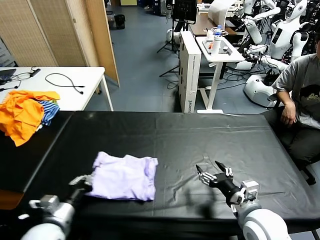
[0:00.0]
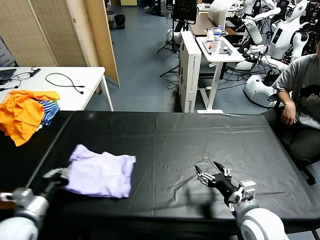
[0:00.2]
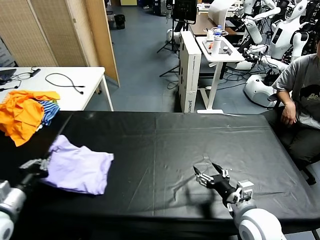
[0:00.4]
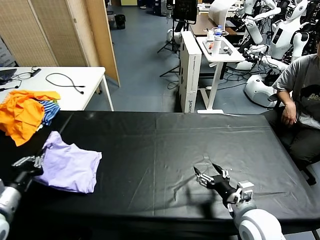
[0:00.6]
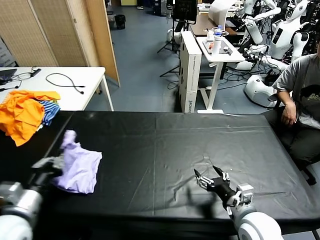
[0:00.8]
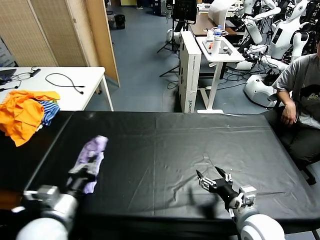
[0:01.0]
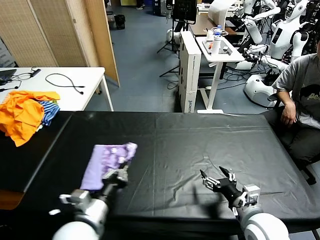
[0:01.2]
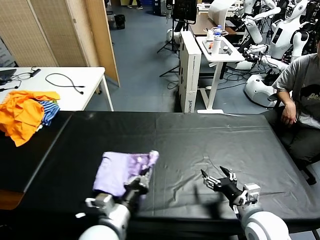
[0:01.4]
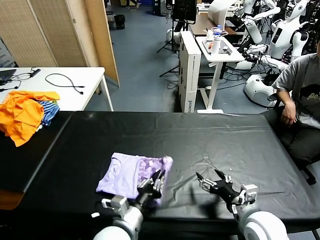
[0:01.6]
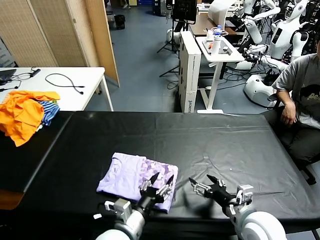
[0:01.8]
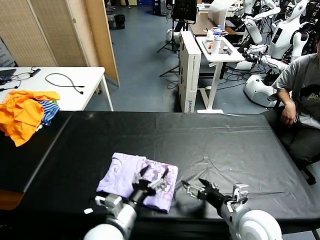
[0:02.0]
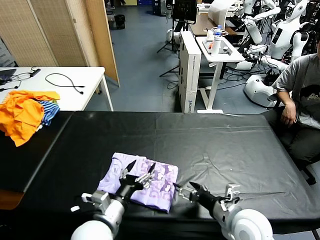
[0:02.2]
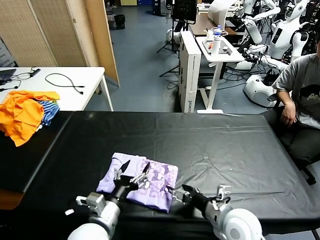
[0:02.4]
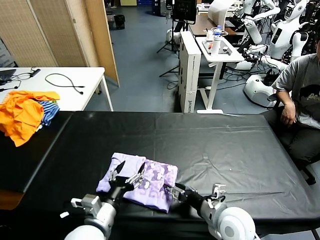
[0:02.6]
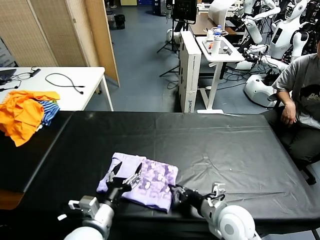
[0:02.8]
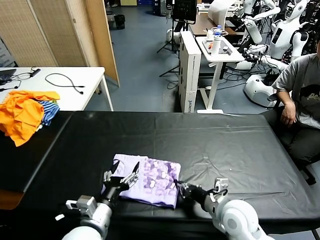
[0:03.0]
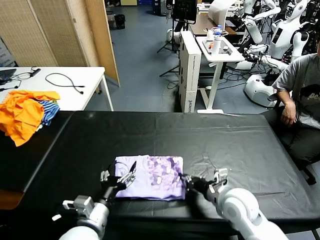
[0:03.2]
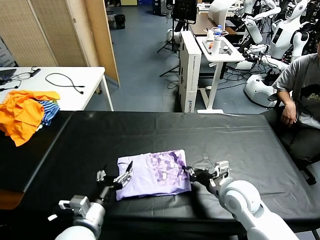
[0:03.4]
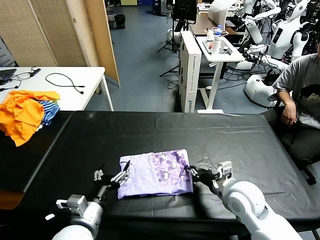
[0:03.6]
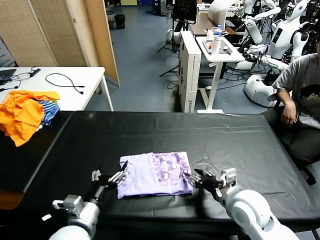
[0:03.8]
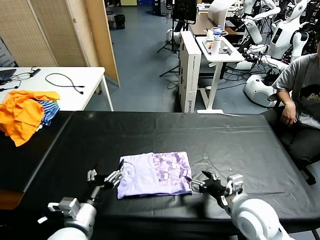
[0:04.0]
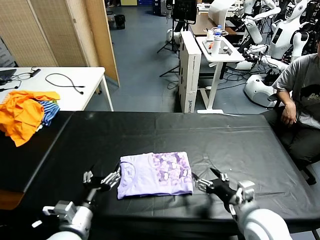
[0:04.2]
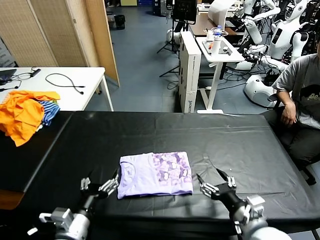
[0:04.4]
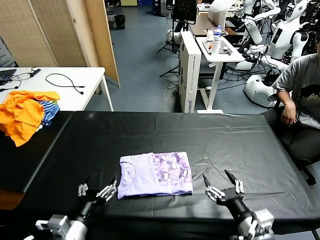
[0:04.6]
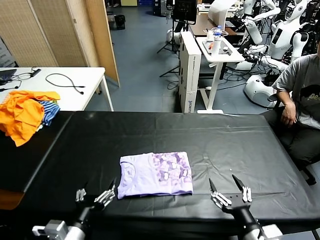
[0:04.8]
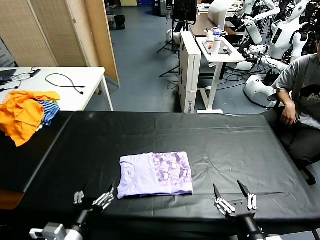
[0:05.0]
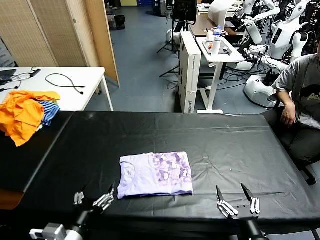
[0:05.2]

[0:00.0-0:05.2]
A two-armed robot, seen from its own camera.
Task of the whole recording: fold and organize the clothes.
Step, 0:01.8 to 0:03.8: Drag the clothes to the center of the table.
0:00.0 to 0:01.8: The left gripper goes about 20 cm to the right, and opens up.
0:01.8 to 0:03.4: The left gripper heads to the left, covering roughly 10 cm, and opens up, while the right gripper heads forward, covering roughly 10 cm, and closes its fingers.
0:03.4 to 0:05.2: The right gripper travels backward by roughly 20 cm, and opens. Meanwhile the left gripper shifts about 5 cm backward.

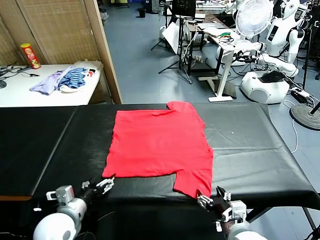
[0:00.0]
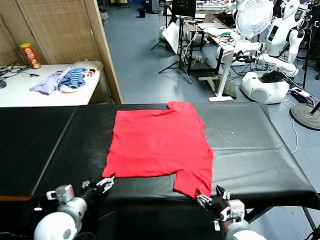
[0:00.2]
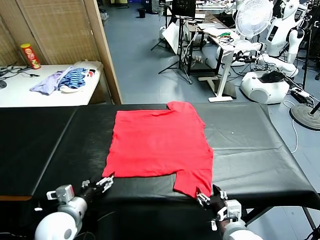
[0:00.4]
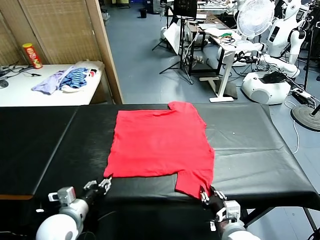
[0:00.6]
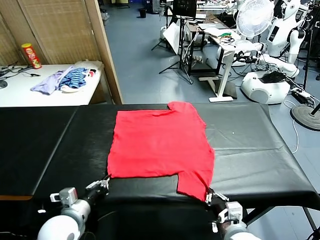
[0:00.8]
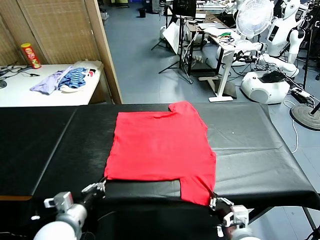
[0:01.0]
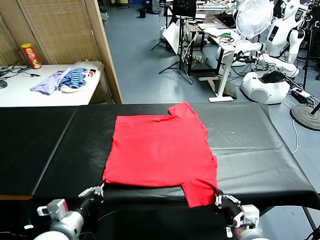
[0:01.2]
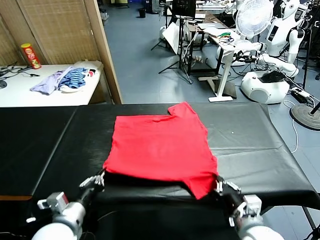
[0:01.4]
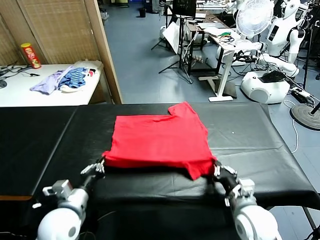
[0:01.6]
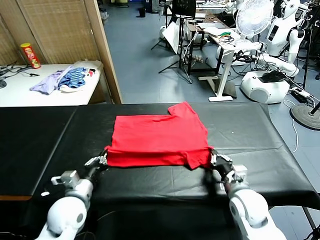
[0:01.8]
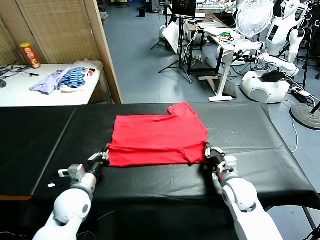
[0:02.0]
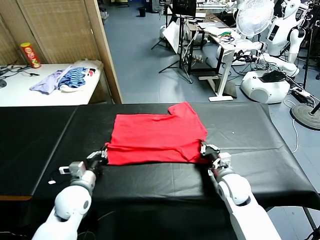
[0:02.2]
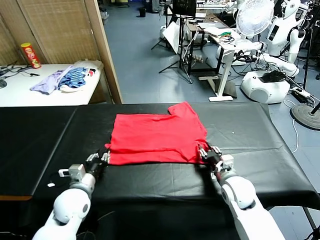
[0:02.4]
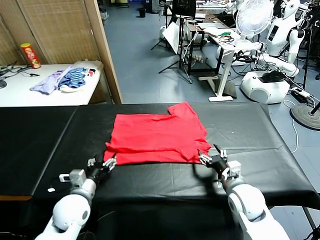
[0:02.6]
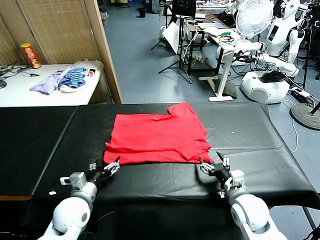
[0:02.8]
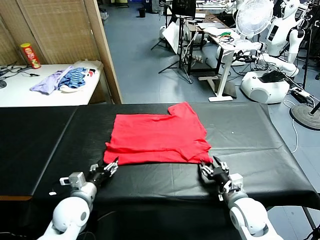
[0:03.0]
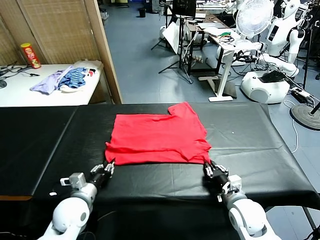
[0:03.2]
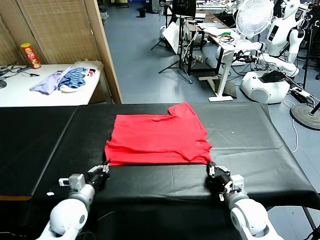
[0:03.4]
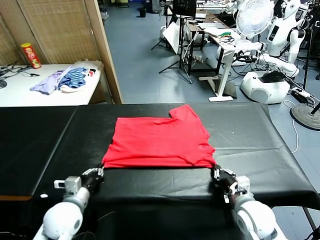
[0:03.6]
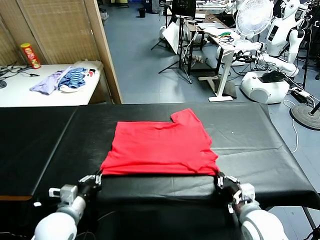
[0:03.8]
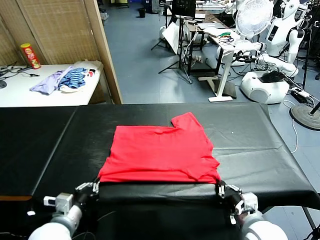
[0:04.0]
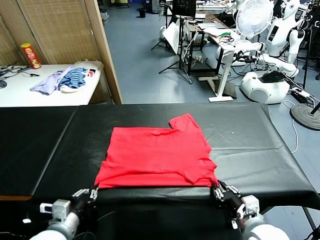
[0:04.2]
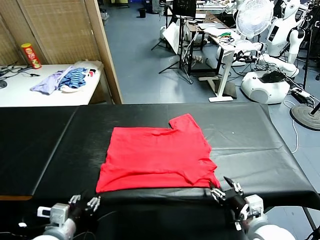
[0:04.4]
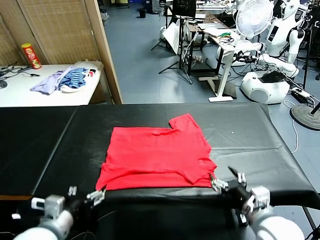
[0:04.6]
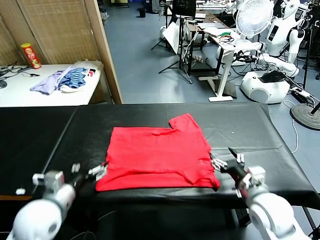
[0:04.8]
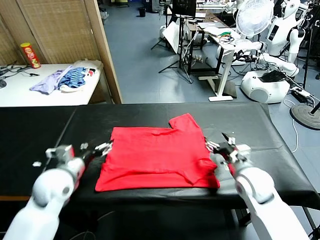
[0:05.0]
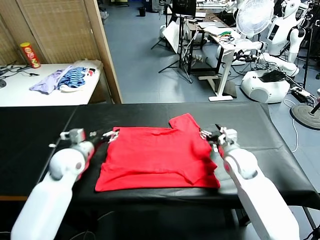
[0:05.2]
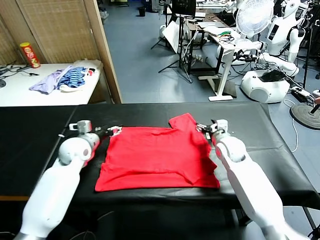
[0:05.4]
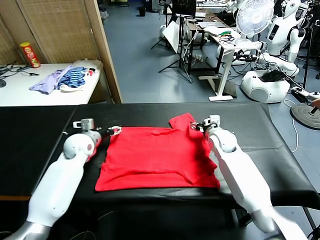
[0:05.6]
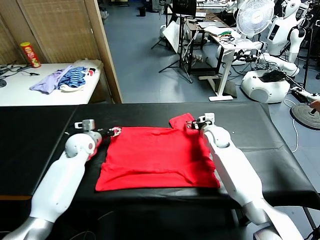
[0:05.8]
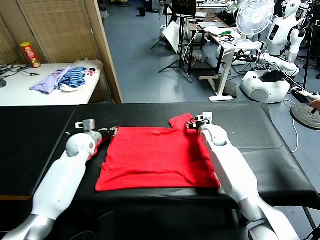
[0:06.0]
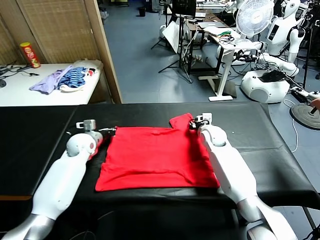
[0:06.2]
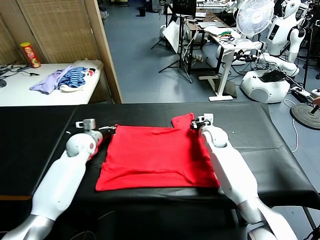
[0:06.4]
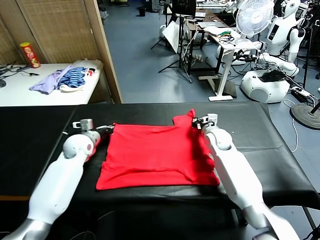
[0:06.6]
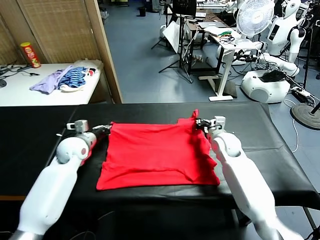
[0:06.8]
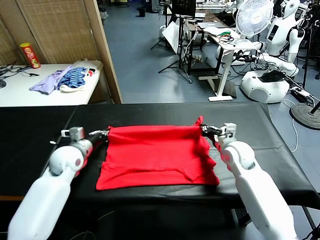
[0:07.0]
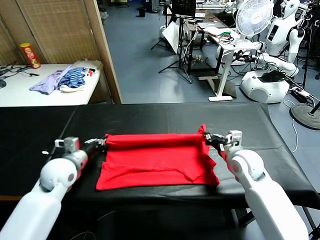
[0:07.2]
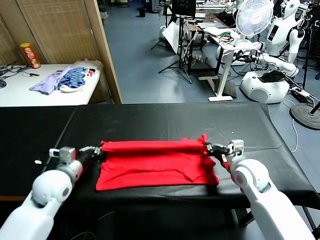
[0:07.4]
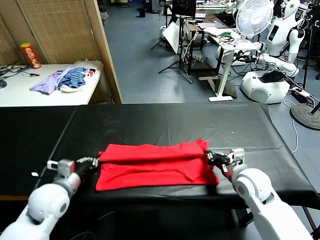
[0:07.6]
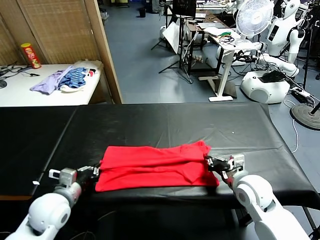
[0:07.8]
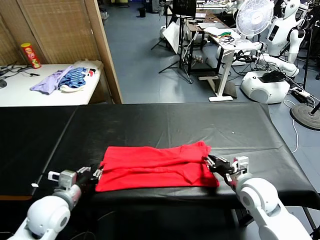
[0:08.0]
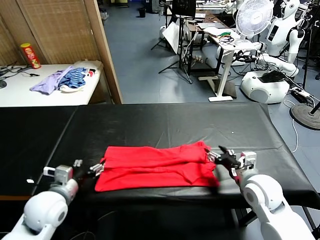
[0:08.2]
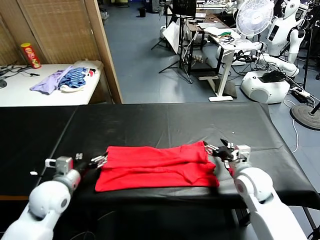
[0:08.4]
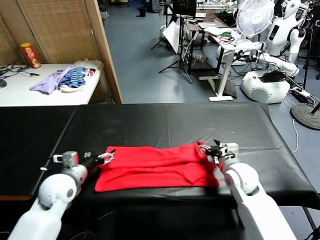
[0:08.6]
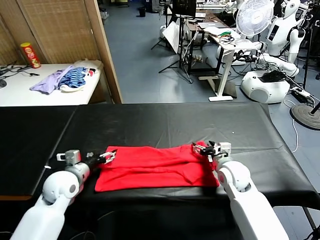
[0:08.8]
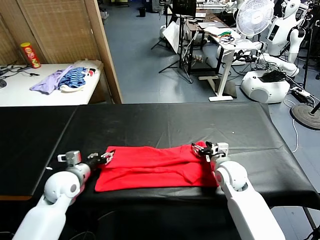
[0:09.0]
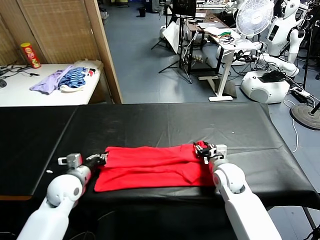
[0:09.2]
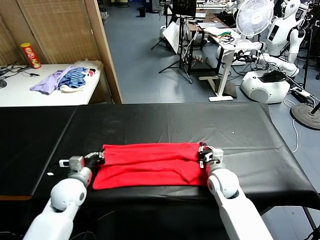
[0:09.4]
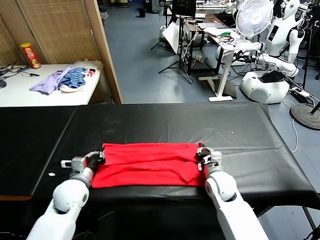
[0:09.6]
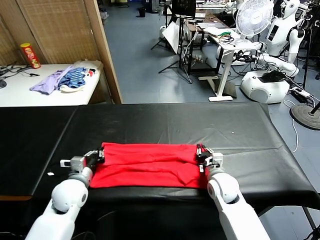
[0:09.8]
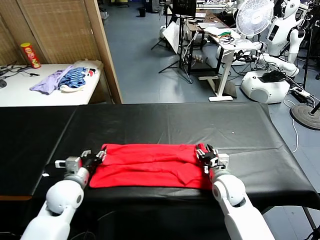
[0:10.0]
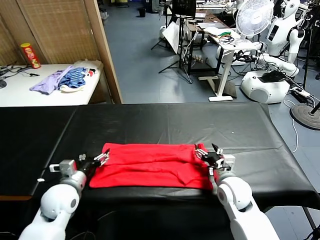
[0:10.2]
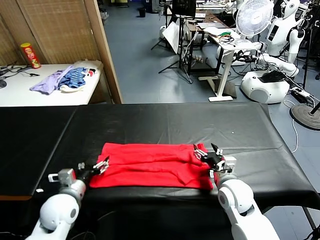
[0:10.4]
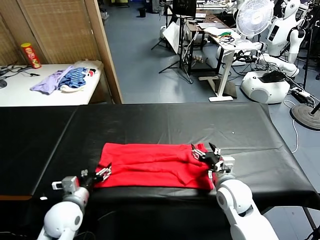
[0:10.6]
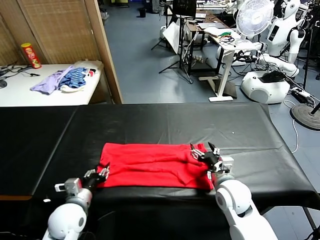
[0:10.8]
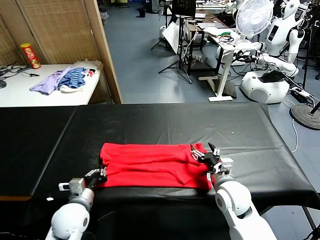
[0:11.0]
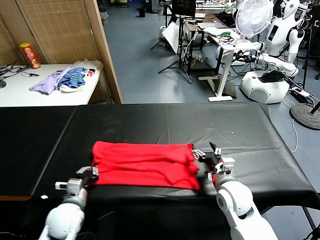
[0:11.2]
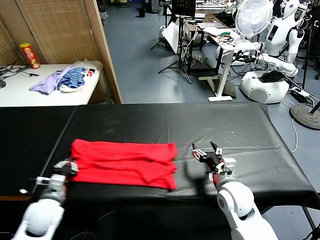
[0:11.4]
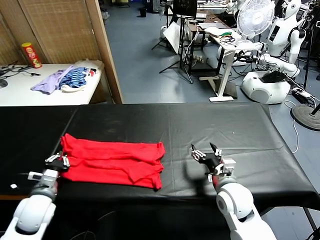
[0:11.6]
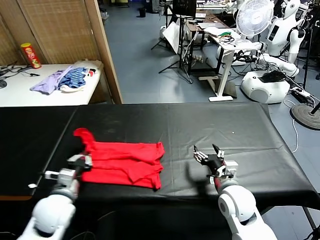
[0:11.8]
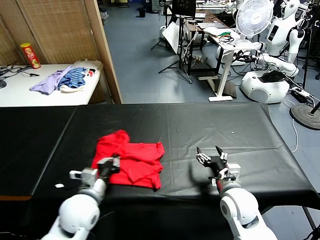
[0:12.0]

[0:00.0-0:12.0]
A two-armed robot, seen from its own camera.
Task of the whole recording: fold and organize the clothes.
Step, 0:00.0 to 0:00.8: use both grippers simultaneously to clamp the lower edge of the clothing fabric.
Step, 0:01.0 to 0:02.4: use both grippers to drag the lower edge of the fabric forward and fold it over the upper edge.
Step, 0:02.6 to 0:04.4: Drag the clothes downward with both gripper.
Step, 0:04.6 to 0:06.2: use both grippers simultaneously to clamp the upper edge of the clothing fabric.
Step, 0:06.4 to 0:08.0: use both grippers to drag the upper edge of the fabric backward and fold it over the lower edge.
Step, 0:08.2 to 0:11.0: use the left gripper to clamp the left edge of the fabric.
0:01.6 to 0:03.0: The right gripper opens, then closes once more. Meanwhile the left gripper opens its fingers.
0:03.0 to 0:04.4: The left gripper is displaced backward and upward by roughly 15 cm, and opens up, while the right gripper goes some 10 cm upward and backward, and opens.
0:04.4 to 0:06.0: Both grippers move forward, roughly 35 cm. The left gripper closes, while the right gripper closes its fingers.
0:06.0 to 0:07.6: Both grippers travel together backward, roughly 25 cm.
0:07.6 to 0:09.0: The grippers both shift forward by approximately 5 cm. The left gripper opens up. Meanwhile the right gripper opens its fingers.
0:09.0 to 0:10.4: The grippers both shift backward by roughly 5 cm. The left gripper opens. Meanwhile the right gripper closes and opens again.
0:10.4 to 0:12.0: The left gripper goes approximately 10 cm to the right, and closes.

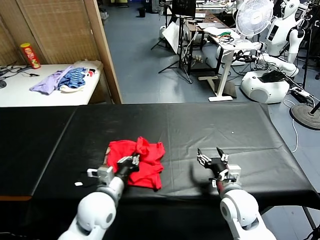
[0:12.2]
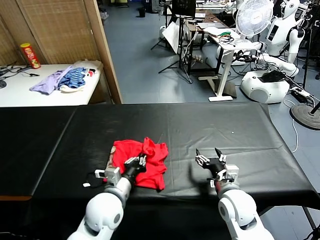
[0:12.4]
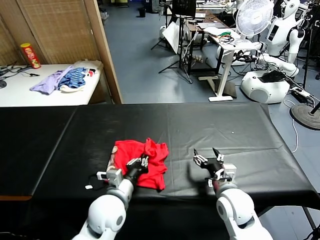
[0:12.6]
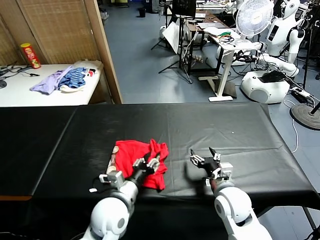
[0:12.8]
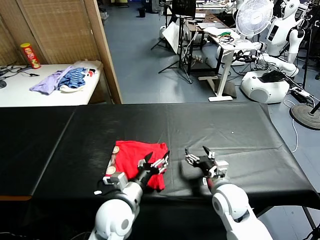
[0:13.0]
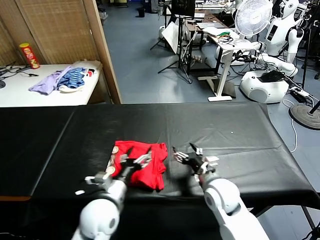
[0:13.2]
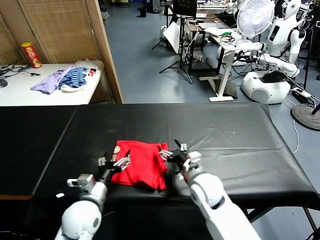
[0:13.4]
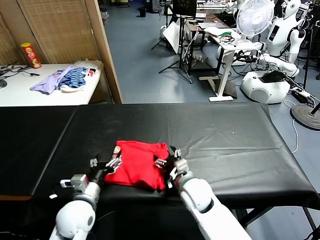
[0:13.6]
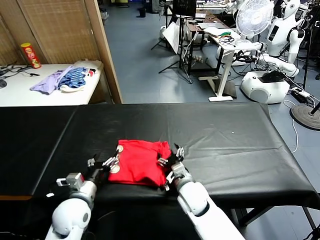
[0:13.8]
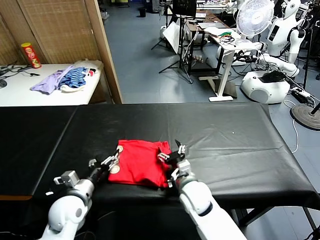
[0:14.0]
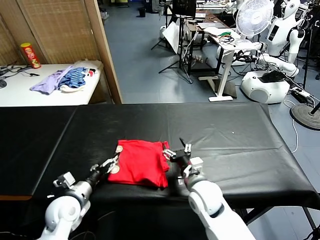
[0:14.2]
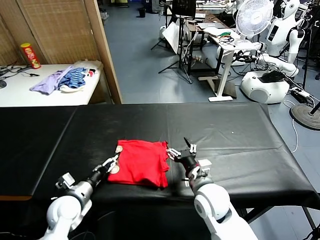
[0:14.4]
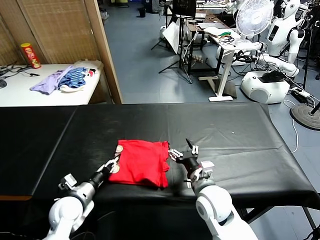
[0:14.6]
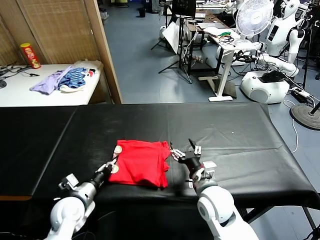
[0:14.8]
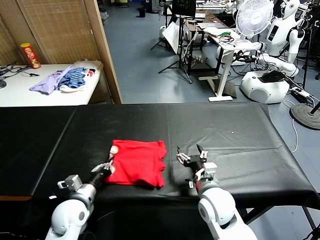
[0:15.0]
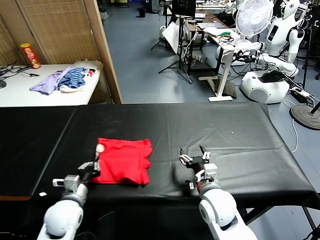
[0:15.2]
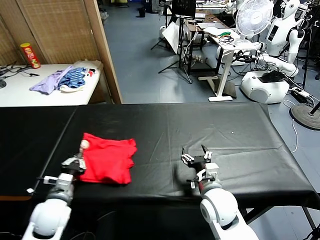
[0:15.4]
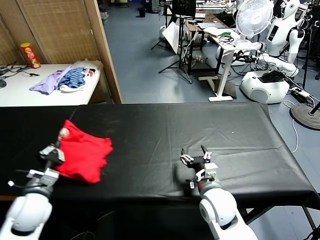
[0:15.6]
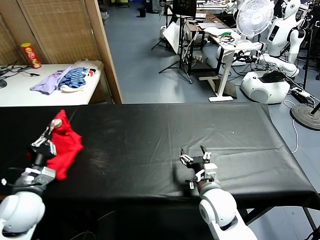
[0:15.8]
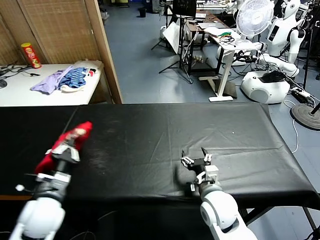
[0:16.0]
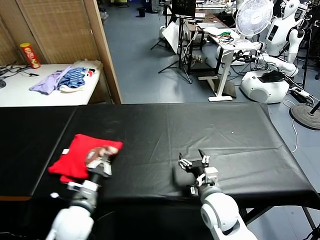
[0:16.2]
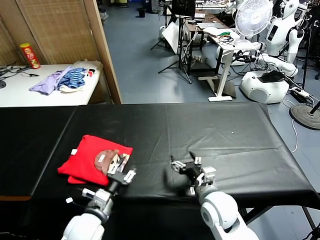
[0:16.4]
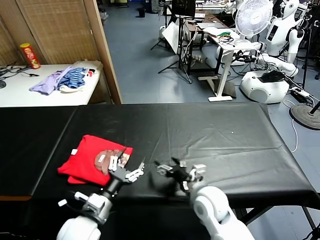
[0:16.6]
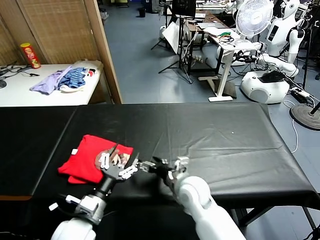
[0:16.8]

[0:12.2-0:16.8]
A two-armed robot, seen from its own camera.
Task of the whole recording: fold and organize the clothes.
Step, 0:13.2 to 0:16.4: Flip the folded clothes over with left gripper.
0:12.2 to 0:13.8: The right gripper goes roughly 15 cm to the left and downward, while the left gripper shifts about 10 cm to the left, and opens its fingers.
0:13.8 to 0:15.2: The left gripper closes up. The right gripper goes approximately 10 cm to the right and upward.
0:15.2 to 0:16.8: The left gripper travels to the right, backward and upward by roughly 10 cm, and opens its fingers; the right gripper moves to the left, roughly 5 cm.
